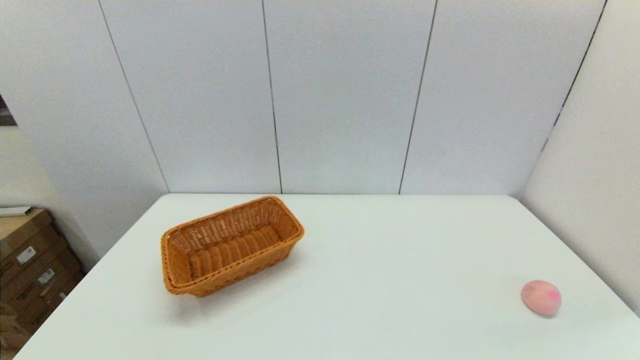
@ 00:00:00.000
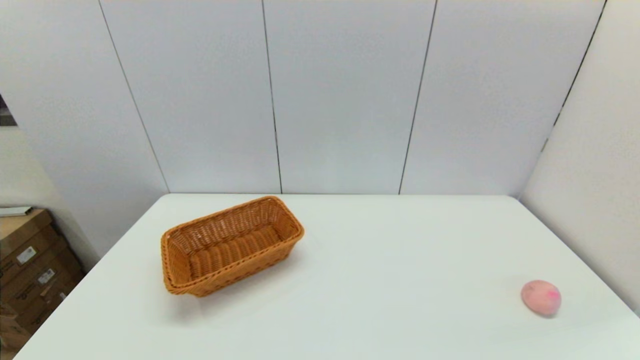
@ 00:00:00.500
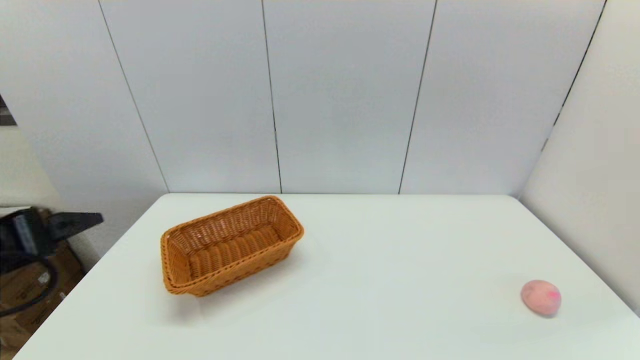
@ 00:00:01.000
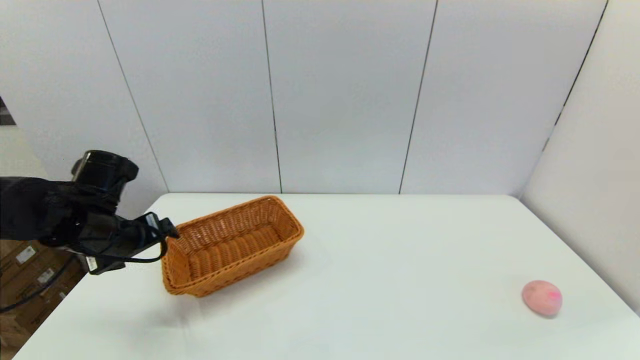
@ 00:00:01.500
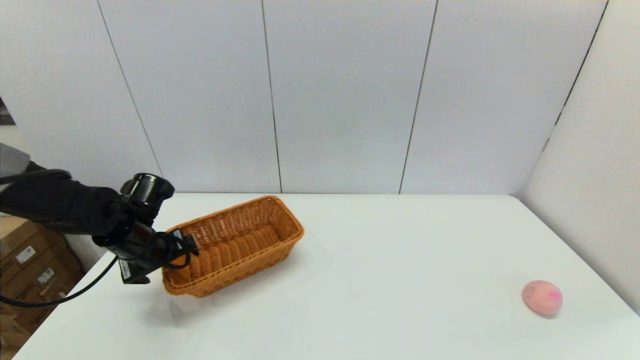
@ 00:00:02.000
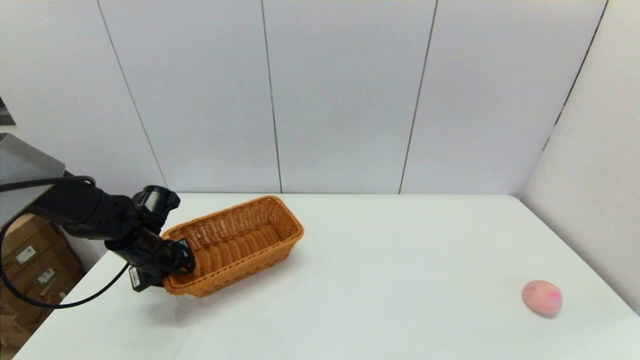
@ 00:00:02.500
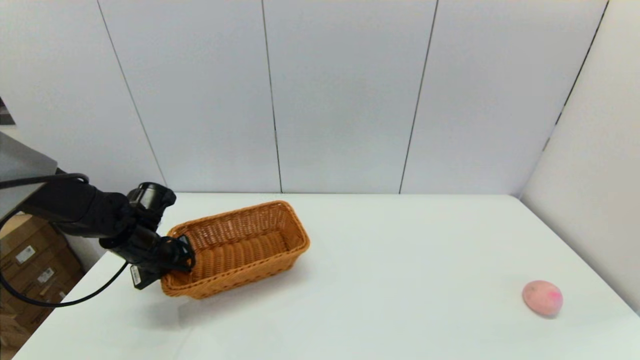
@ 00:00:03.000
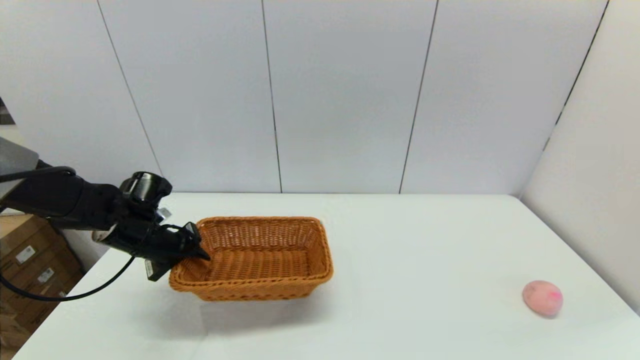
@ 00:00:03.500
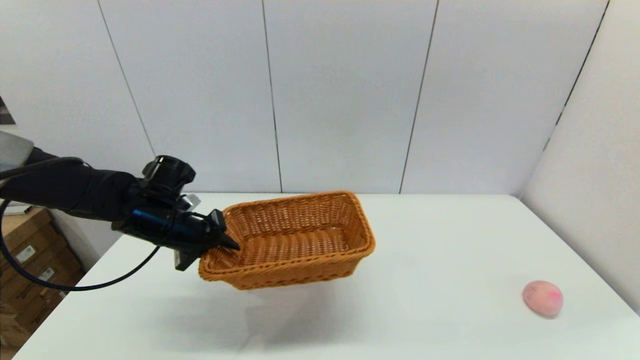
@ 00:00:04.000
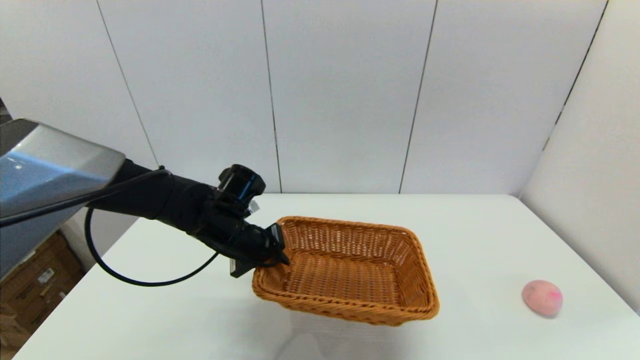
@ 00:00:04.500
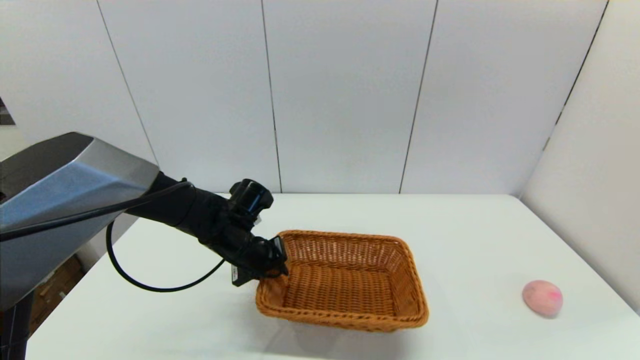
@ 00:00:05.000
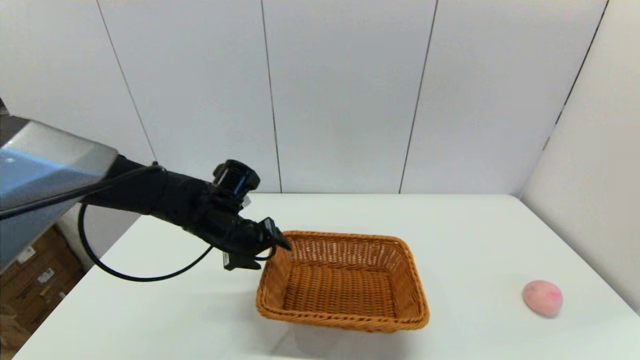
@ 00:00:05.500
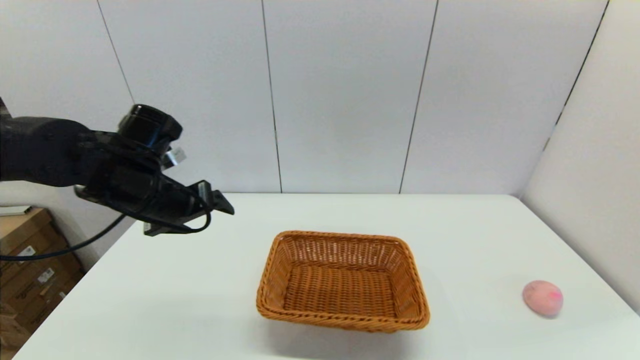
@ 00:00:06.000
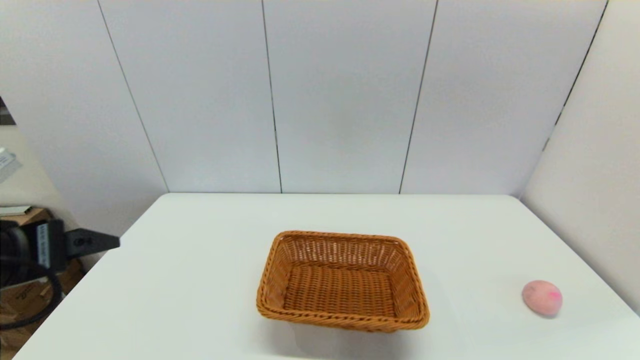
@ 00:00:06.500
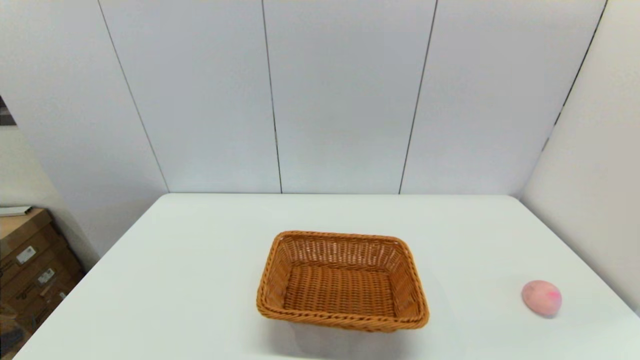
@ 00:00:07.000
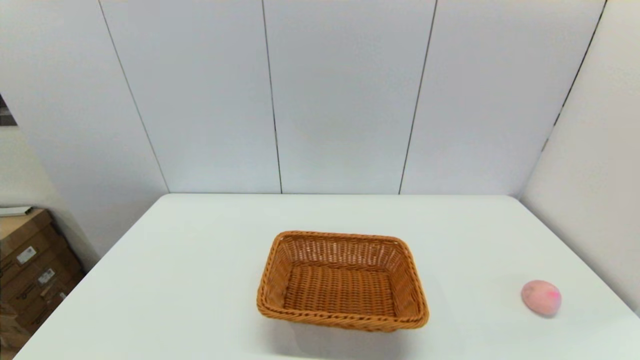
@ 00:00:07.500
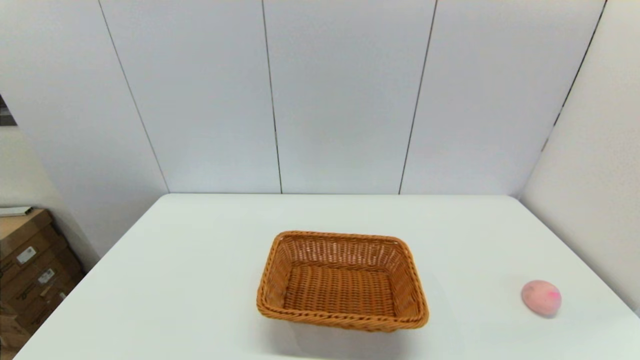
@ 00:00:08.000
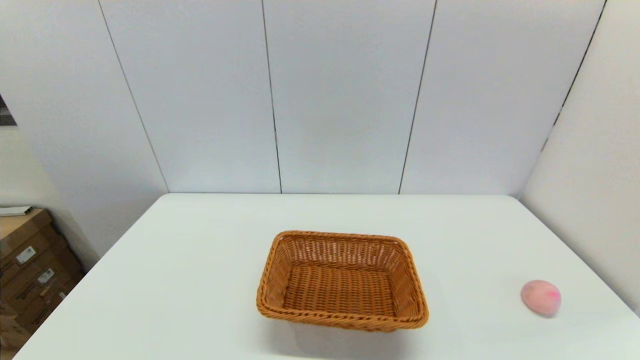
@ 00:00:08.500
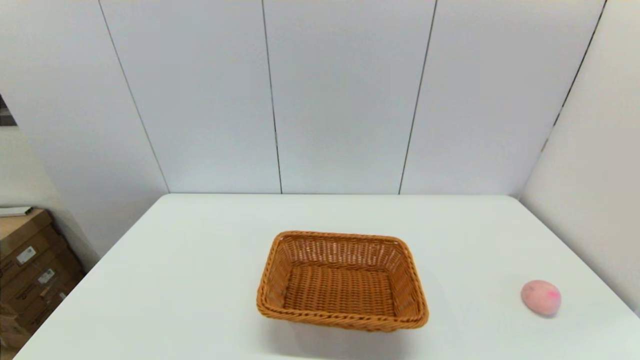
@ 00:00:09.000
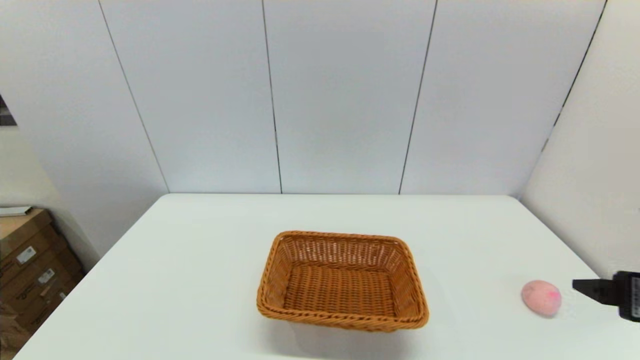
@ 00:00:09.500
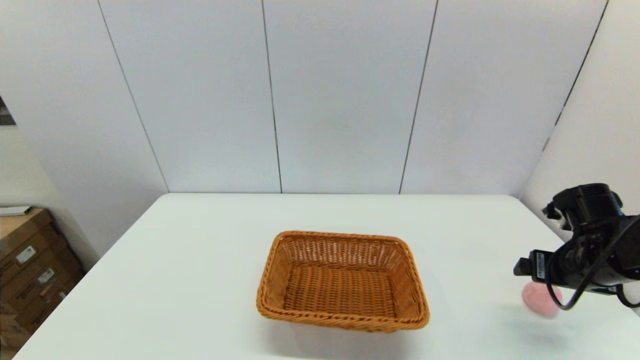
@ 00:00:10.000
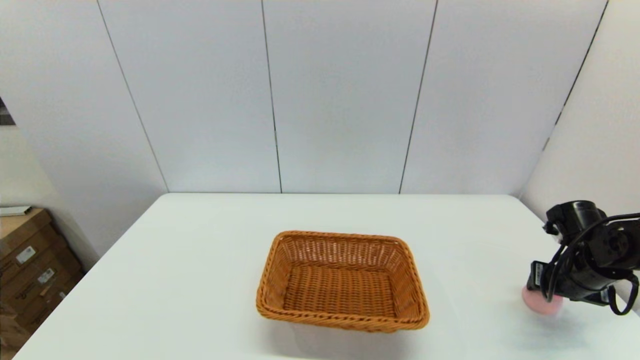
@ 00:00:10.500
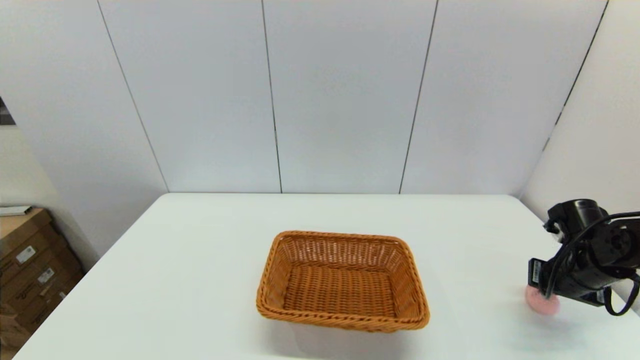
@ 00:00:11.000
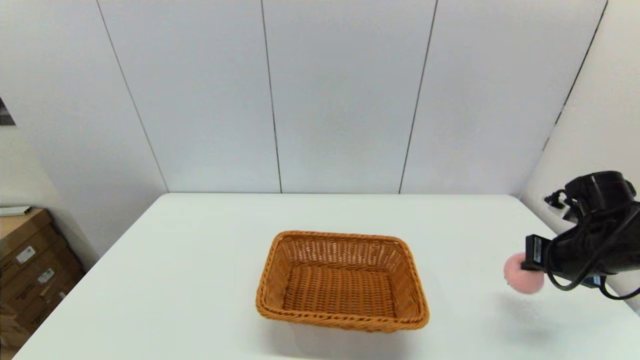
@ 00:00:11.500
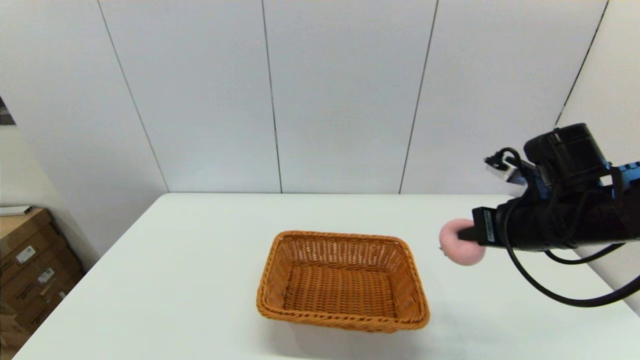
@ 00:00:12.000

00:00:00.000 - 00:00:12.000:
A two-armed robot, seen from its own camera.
Step, 00:00:00.000 - 00:00:02.500: Grasp the light basket with the left gripper.
Step, 00:00:03.000 - 00:00:05.000: Place the light basket on the middle of the table with the left gripper.
Step, 00:00:05.500 - 00:00:11.000: Grasp the peach with the right gripper.
00:00:00.000 - 00:00:02.000: The left gripper shifts approximately 35 cm forward.
00:00:02.000 - 00:00:04.000: The left gripper goes approximately 5 cm to the right, and closes up.
00:00:04.000 - 00:00:06.000: The left gripper moves upward, some 10 cm, and opens up.
00:00:06.000 - 00:00:08.000: The left gripper shifts about 30 cm backward.
00:00:08.000 - 00:00:10.000: The right gripper moves forward, approximately 30 cm.
00:00:10.000 - 00:00:12.000: The right gripper is displaced to the left and upward by approximately 15 cm, and closes up.

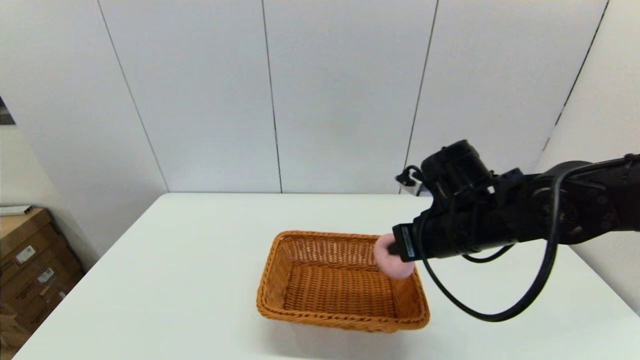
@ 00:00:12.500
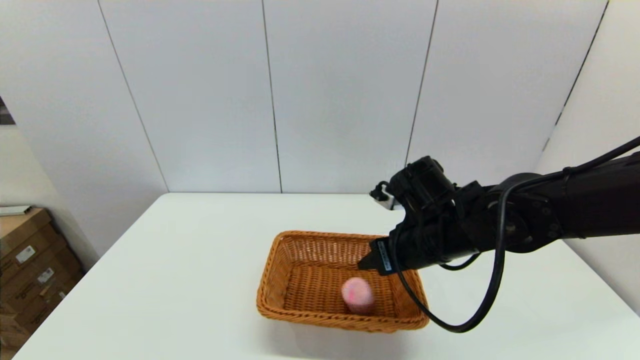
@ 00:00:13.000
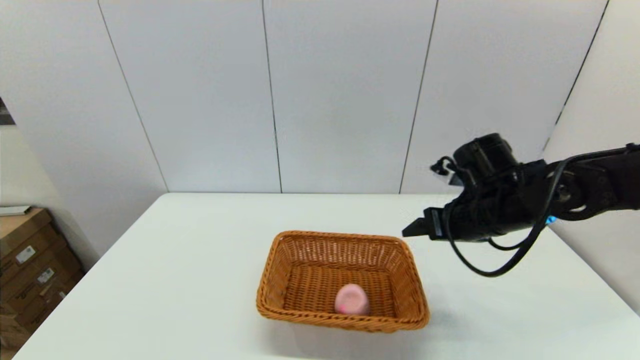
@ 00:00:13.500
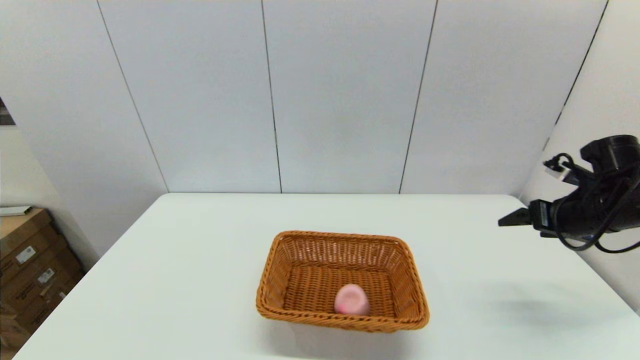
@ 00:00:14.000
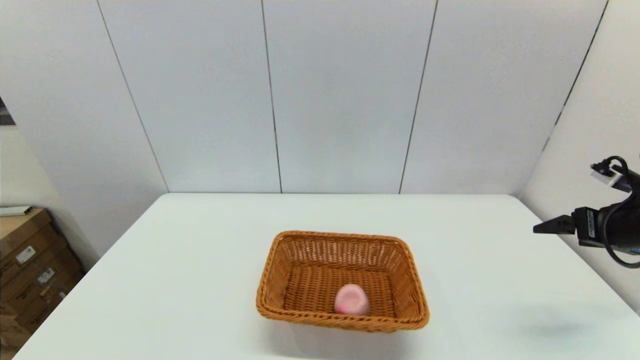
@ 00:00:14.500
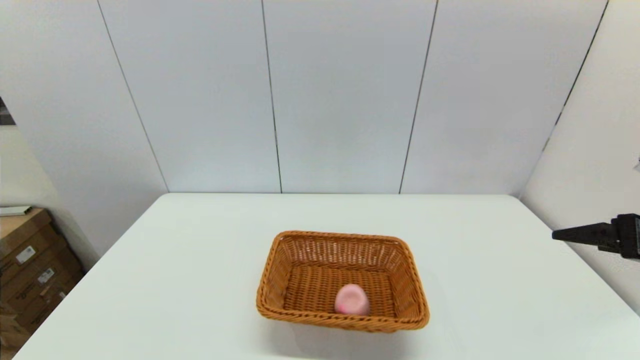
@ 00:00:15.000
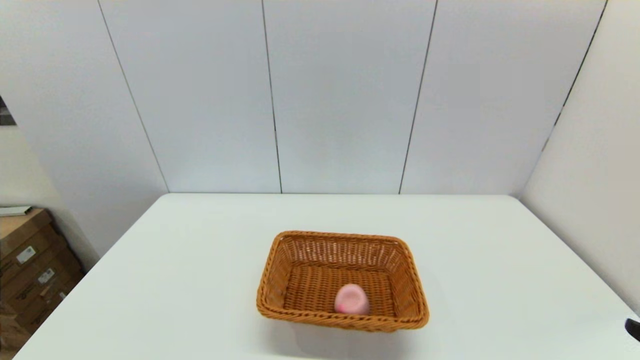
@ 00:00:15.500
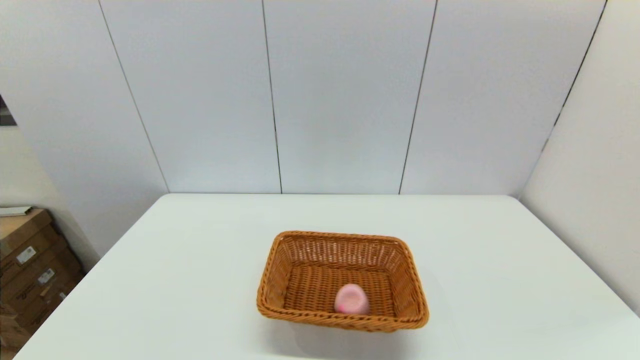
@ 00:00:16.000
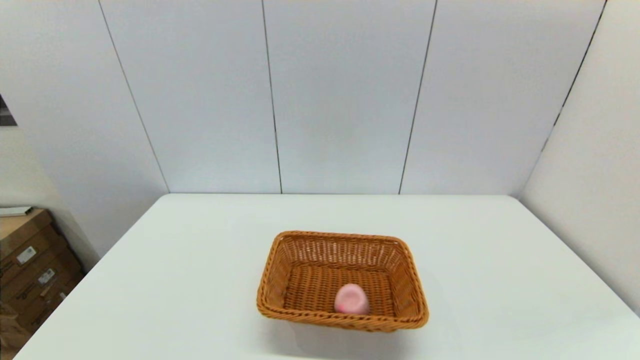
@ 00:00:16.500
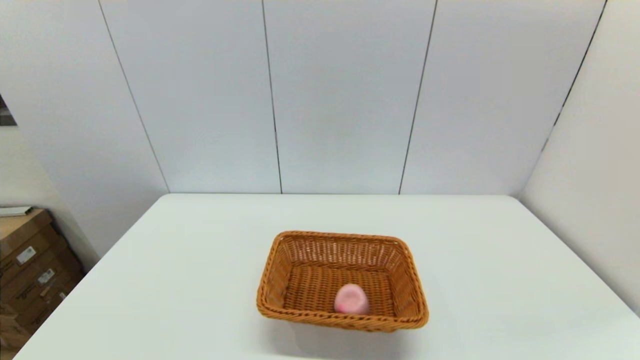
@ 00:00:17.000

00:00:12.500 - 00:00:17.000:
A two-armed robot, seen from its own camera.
00:00:12.500 - 00:00:14.500: The right gripper heads to the right, covering about 25 cm, and opens up.
00:00:14.500 - 00:00:17.000: The right gripper moves backward, roughly 30 cm.
